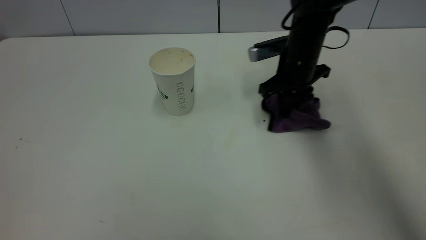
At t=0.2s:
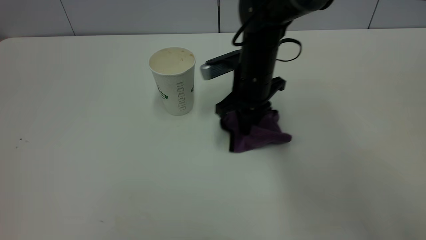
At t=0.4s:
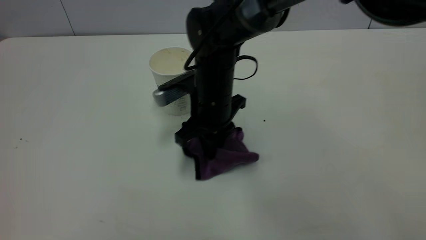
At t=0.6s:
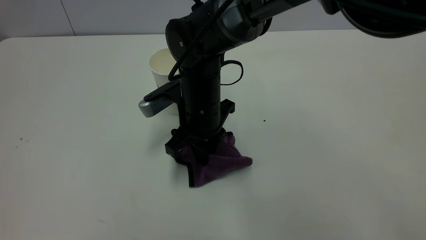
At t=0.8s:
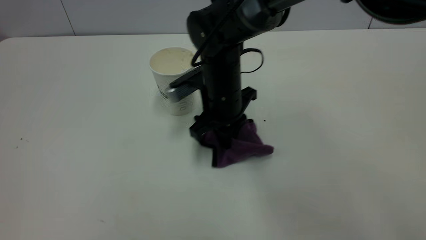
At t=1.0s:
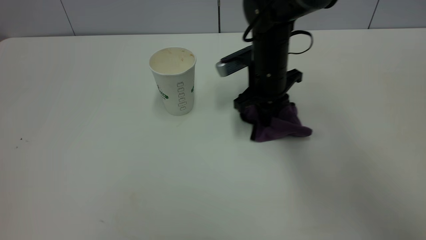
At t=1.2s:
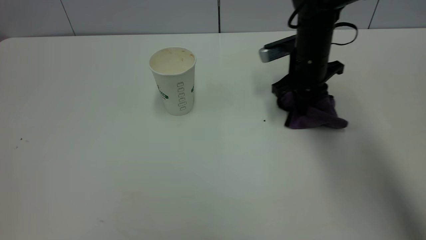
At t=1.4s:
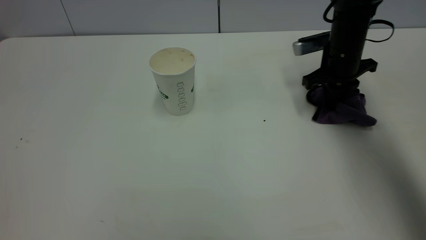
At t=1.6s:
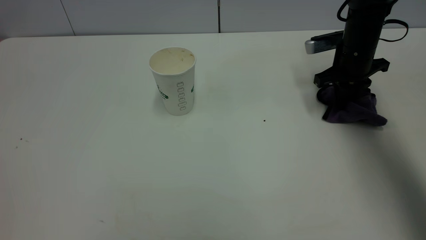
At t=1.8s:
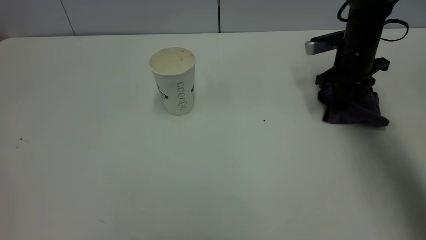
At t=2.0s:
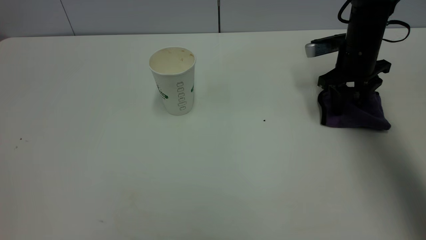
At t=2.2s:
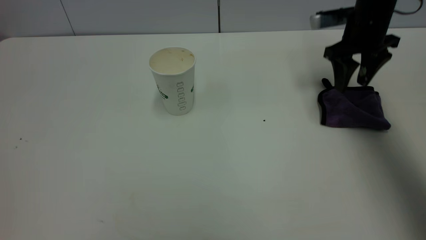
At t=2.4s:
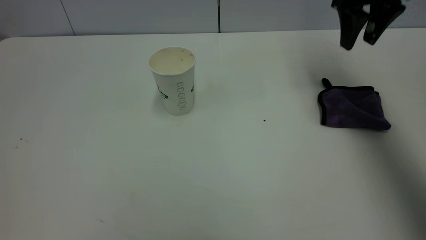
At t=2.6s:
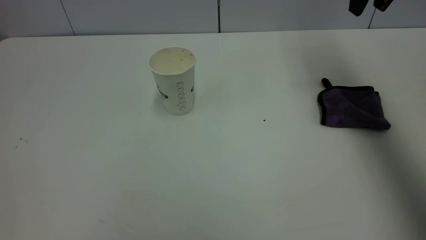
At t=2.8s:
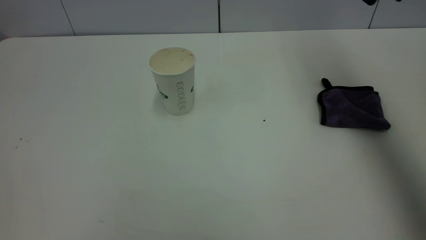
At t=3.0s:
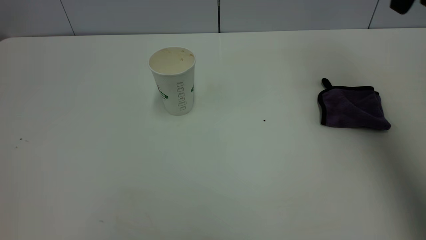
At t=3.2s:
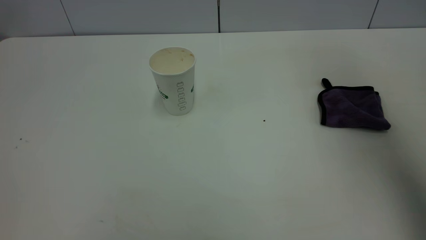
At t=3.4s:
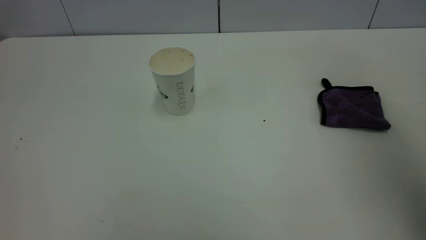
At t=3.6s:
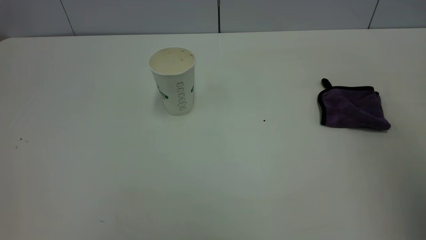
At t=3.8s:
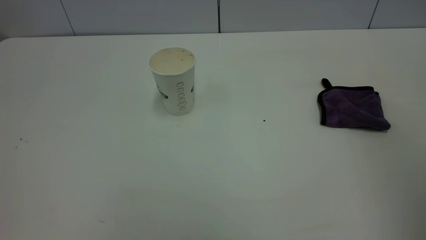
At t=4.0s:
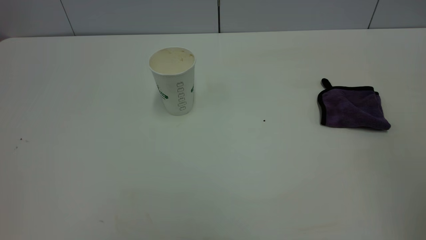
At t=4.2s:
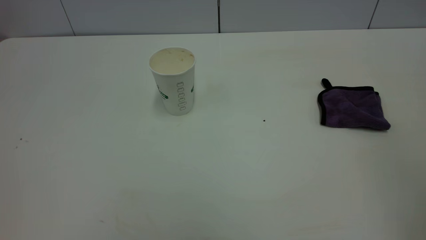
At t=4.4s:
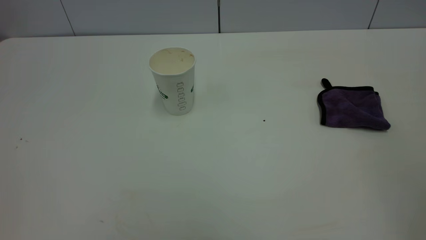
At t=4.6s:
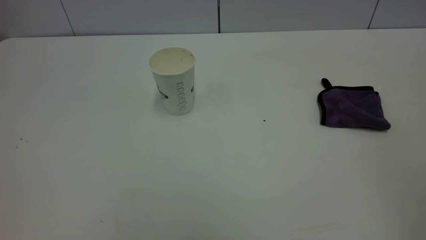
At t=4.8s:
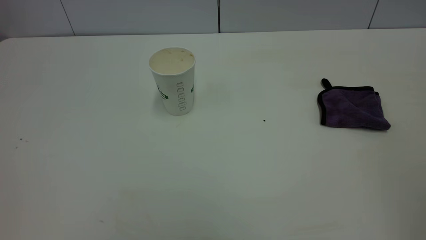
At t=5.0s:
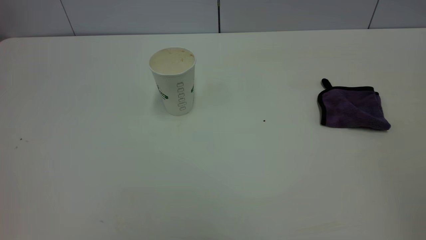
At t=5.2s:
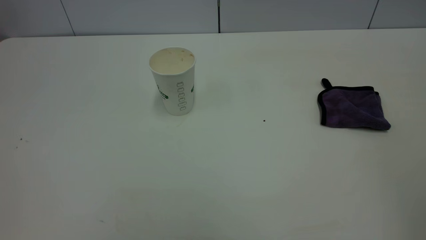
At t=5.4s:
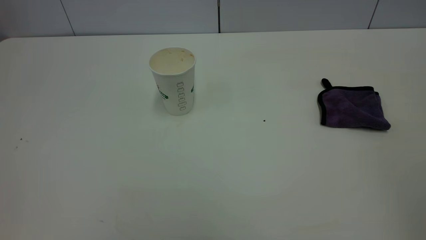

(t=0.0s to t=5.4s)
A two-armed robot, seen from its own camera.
Task of the whole recording: the left gripper pick up the fallen cup and place it upright, the right gripper grasp the purple rag and wipe the tea stain on the table, the right gripper put the purple rag back in its original position.
Step, t=0.0s - t=2.2s: Wipe the stains off the table with a rag.
t=0.0s - t=1.4s: The right gripper moves to the right, about 10 cm.
t=1.4s - t=2.8s: The right gripper goes about 25 cm upward, and opens its fingers.
t=2.8s - t=4.0s: The right gripper goes roughly 35 cm backward.

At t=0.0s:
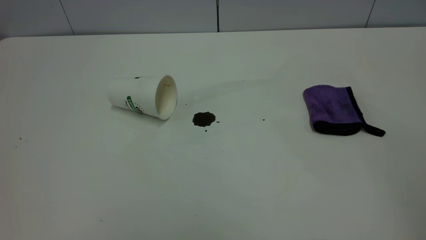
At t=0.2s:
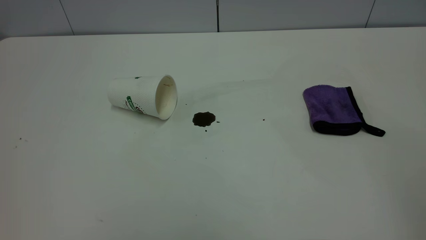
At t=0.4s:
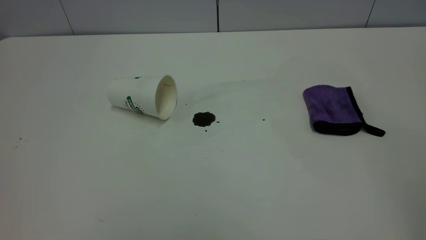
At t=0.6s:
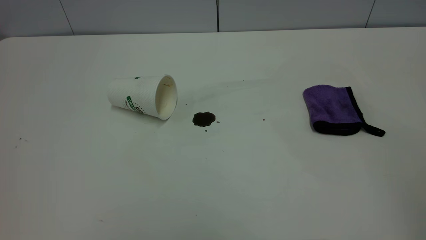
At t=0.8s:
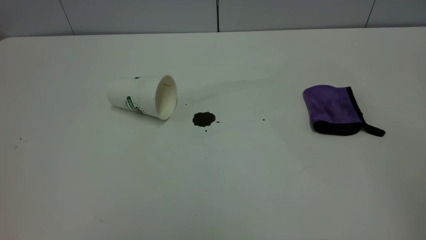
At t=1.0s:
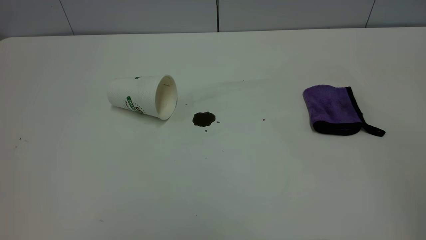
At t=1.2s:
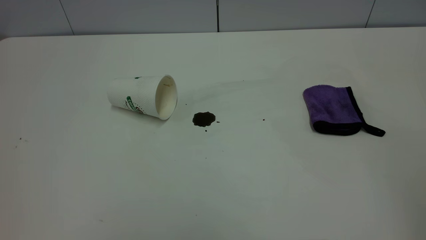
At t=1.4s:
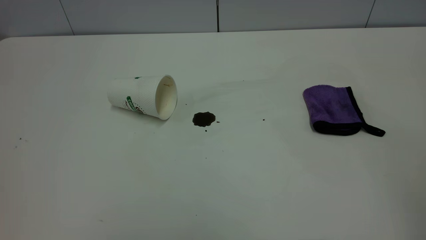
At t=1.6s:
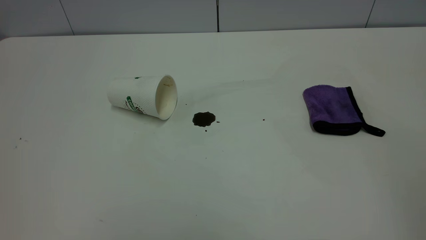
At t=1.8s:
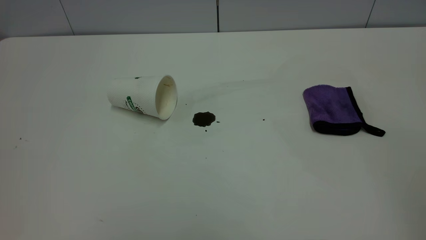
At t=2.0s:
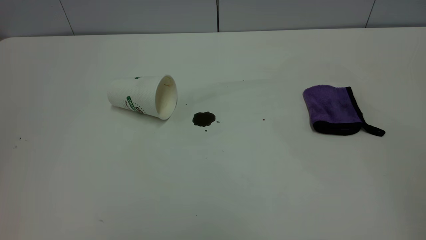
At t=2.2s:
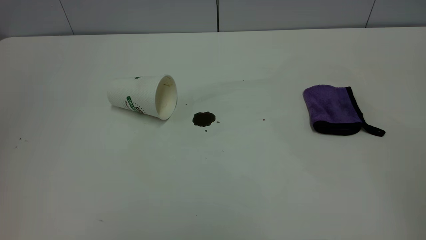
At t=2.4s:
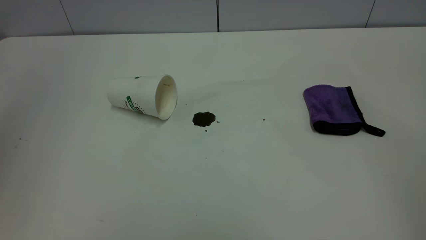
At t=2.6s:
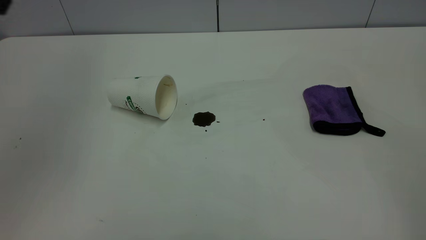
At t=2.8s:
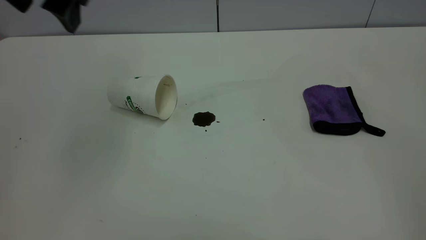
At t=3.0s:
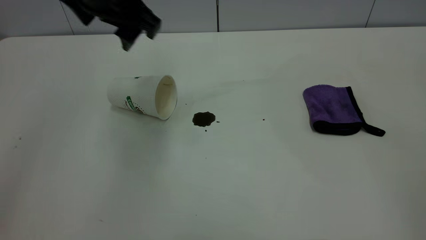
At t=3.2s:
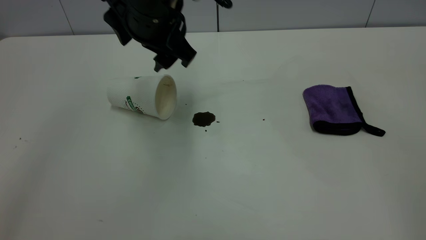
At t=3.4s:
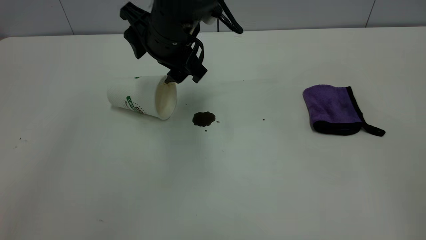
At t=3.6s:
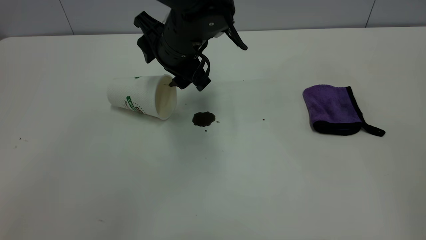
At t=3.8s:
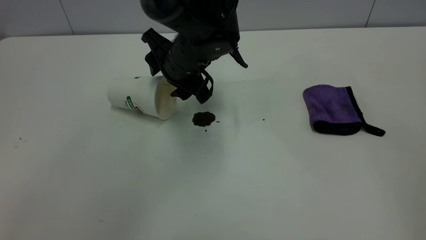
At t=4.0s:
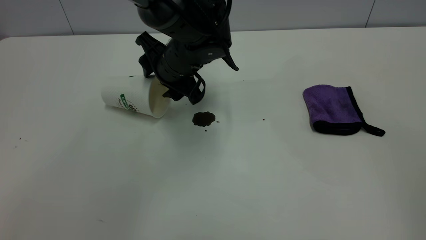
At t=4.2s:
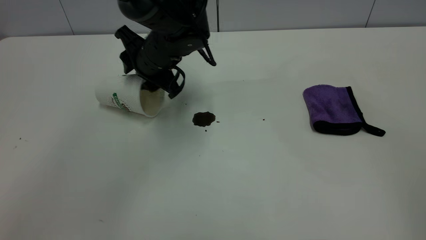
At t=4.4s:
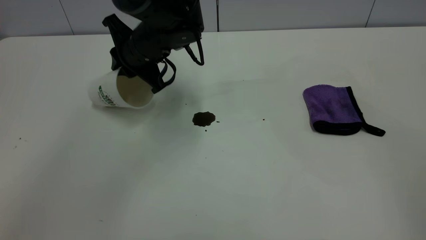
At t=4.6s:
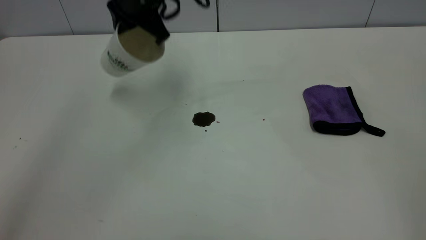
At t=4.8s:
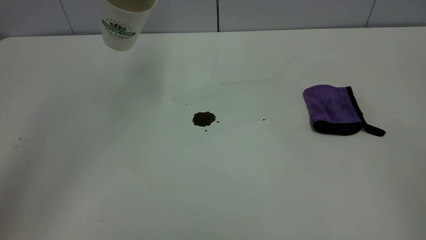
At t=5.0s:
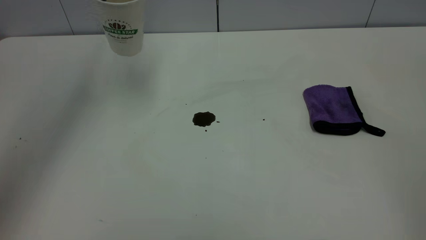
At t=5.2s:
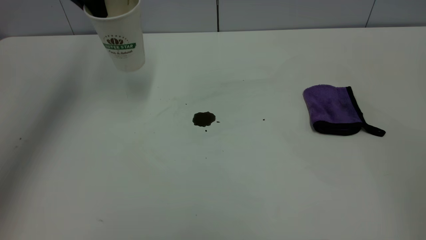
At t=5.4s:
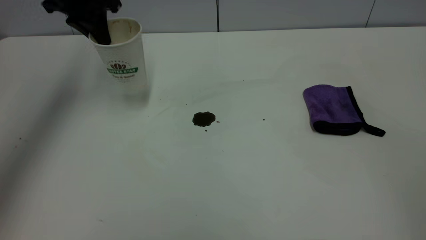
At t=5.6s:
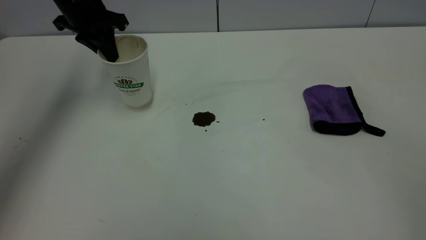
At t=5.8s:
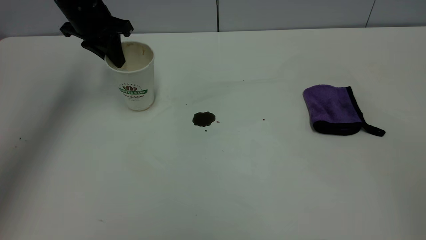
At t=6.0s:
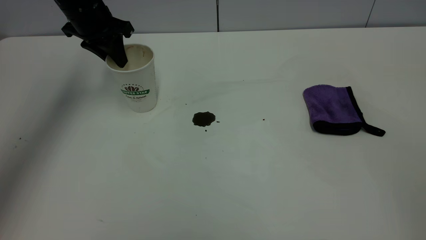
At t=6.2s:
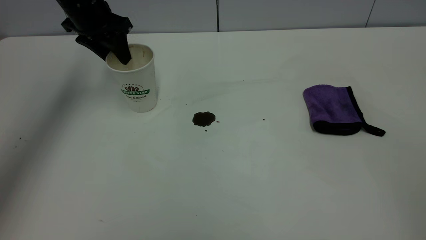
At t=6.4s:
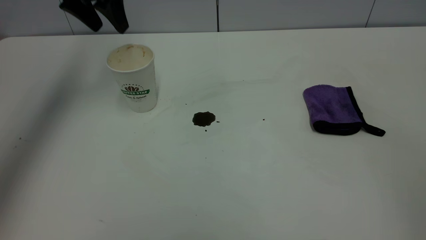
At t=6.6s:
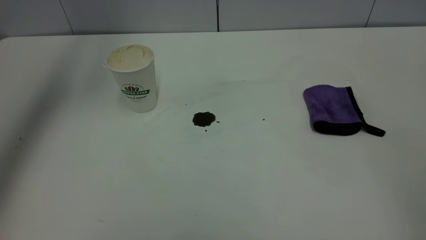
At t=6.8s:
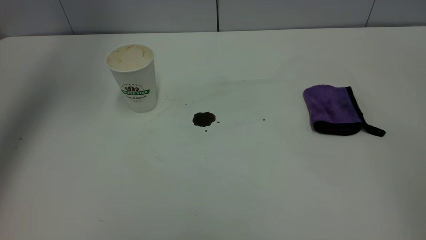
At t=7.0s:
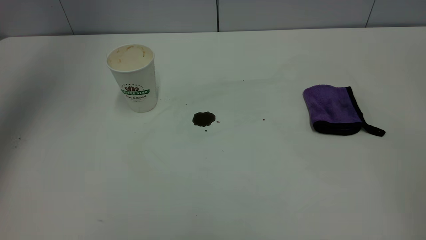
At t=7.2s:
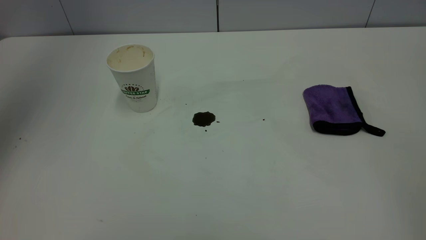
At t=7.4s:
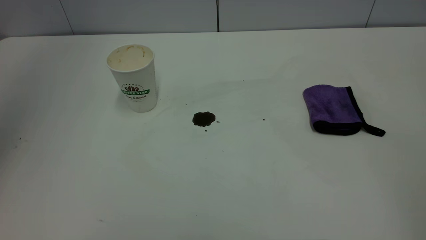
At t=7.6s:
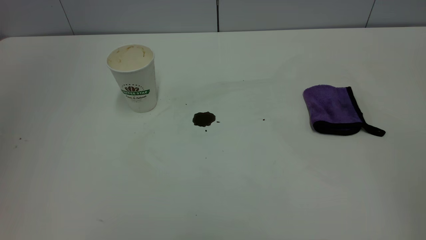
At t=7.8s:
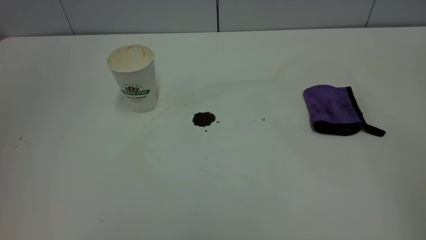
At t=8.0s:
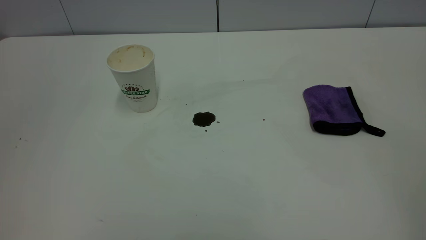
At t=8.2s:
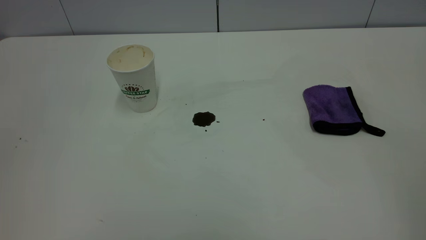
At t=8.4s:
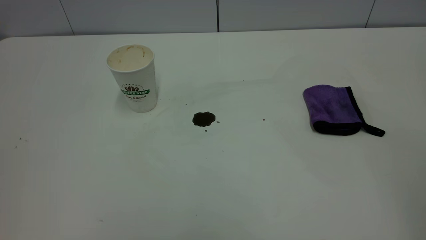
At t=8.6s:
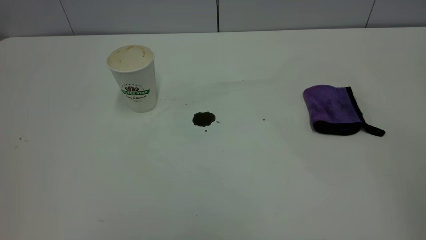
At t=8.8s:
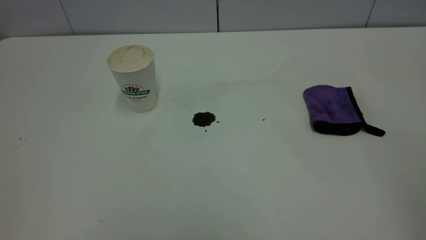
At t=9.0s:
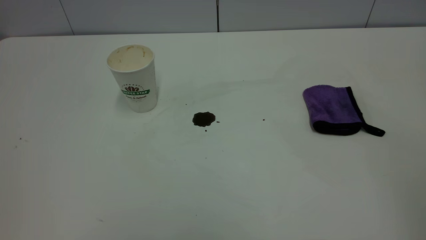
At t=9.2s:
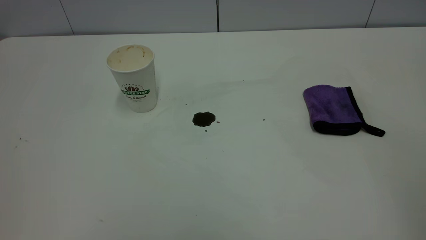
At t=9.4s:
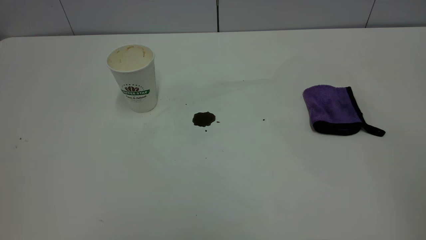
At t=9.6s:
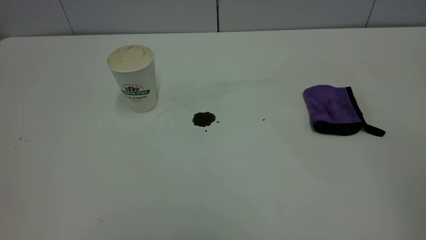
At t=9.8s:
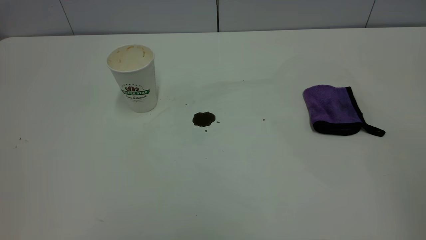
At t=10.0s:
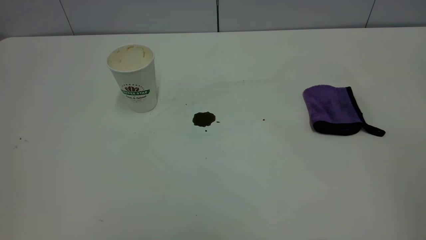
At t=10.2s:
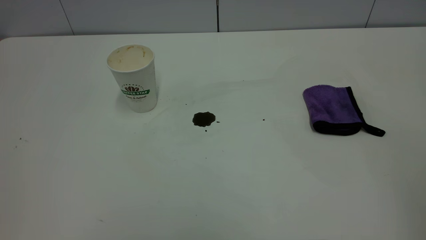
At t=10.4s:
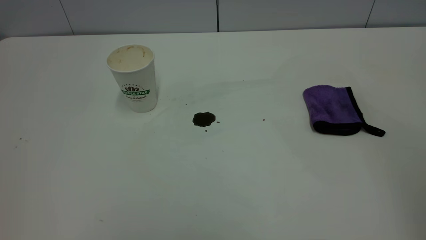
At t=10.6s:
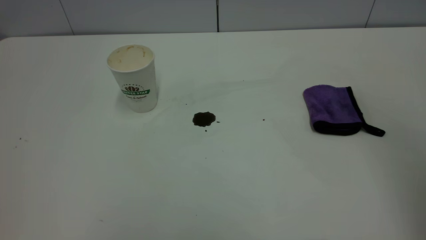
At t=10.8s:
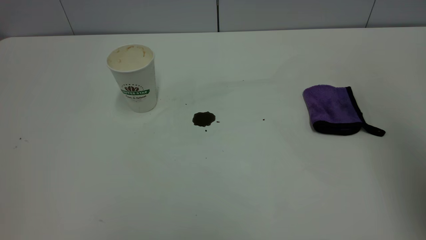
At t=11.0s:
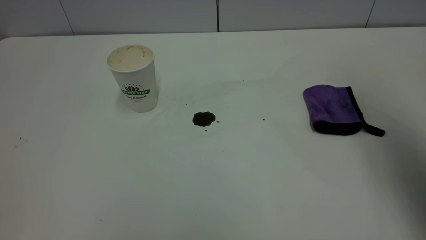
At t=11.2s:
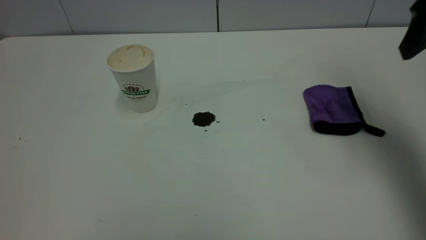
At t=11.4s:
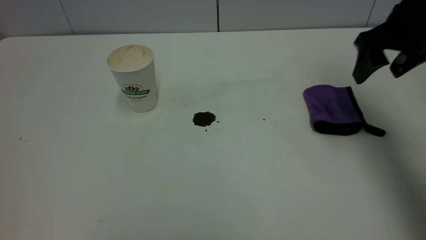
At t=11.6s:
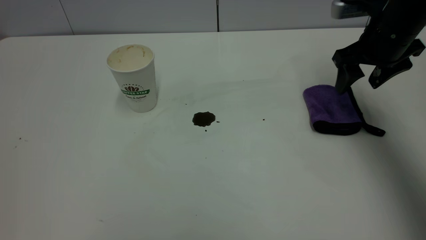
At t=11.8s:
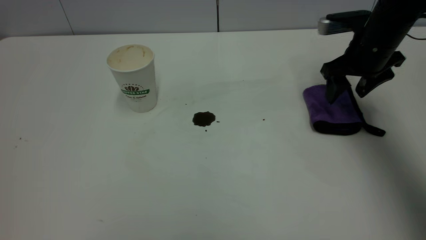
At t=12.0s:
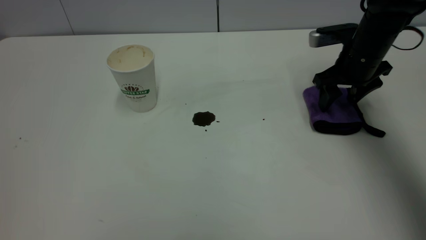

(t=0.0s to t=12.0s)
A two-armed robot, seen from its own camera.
Task of the whole recording: the left gripper pick up the fallen cup and place it upright, the right gripper grasp the purple rag and wipe the coffee stain on the table, the right gripper put the purple rag back in its original position.
Step, t=0.0s - t=6.2s: Stand the paper cup upright.
t=0.0s - t=1.6s: Neither gripper changes place.
t=1.6s - t=3.0s: The left gripper goes about 40 cm forward and to the right, and opens up.
t=3.0s - t=4.4s: The left gripper heads downward and forward, covering approximately 15 cm, and closes its fingers.
t=4.4s - t=6.0s: The left gripper goes roughly 15 cm to the left and forward, and moves some 15 cm upward and comes back.
t=6.0s - t=7.6s: The left gripper goes roughly 40 cm upward and backward, and opens and closes again.
t=10.4s - t=12.0s: The right gripper moves forward and downward, roughly 50 cm.
